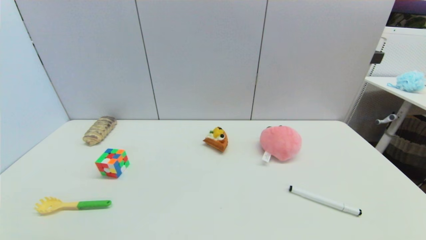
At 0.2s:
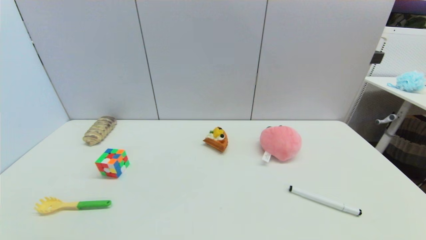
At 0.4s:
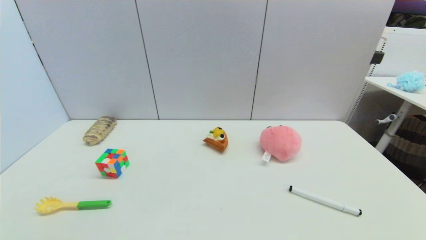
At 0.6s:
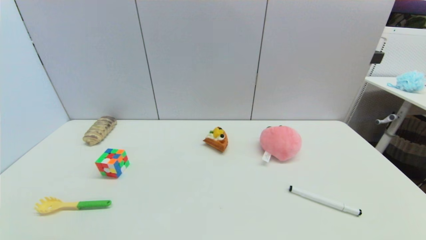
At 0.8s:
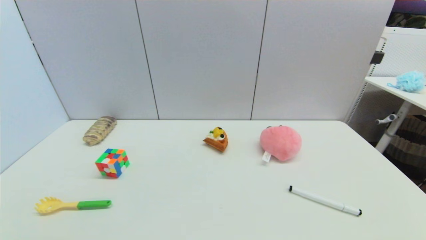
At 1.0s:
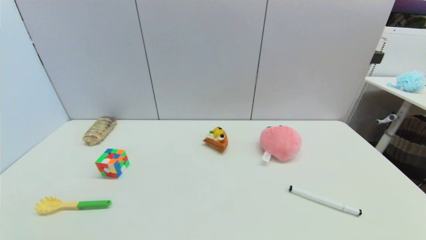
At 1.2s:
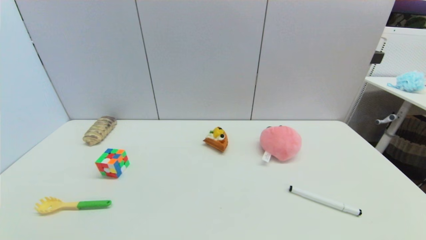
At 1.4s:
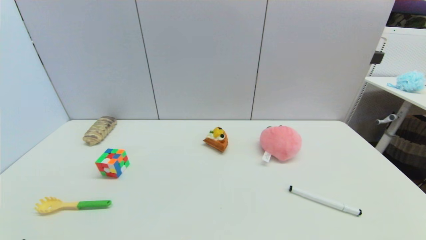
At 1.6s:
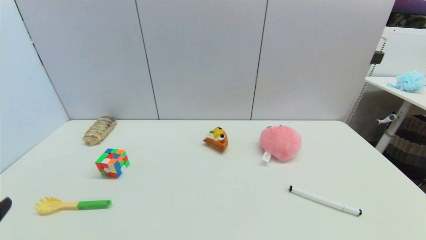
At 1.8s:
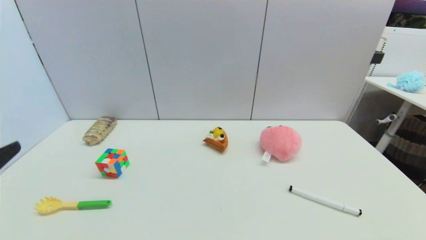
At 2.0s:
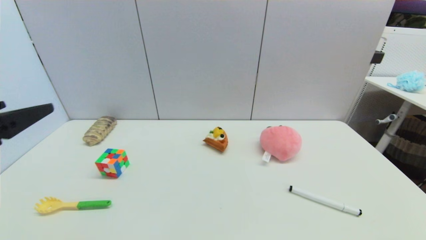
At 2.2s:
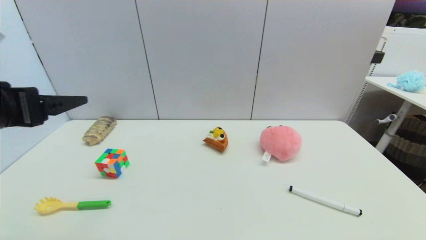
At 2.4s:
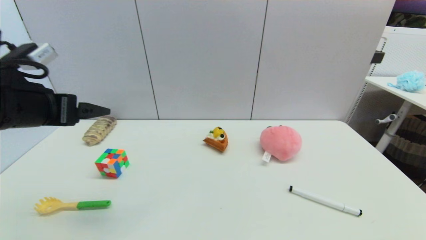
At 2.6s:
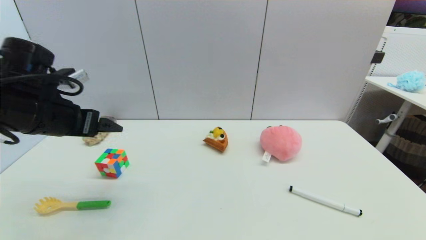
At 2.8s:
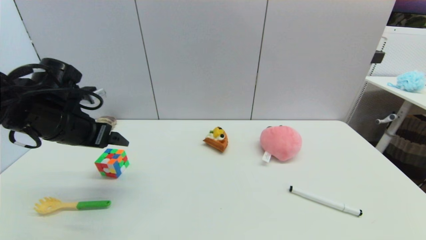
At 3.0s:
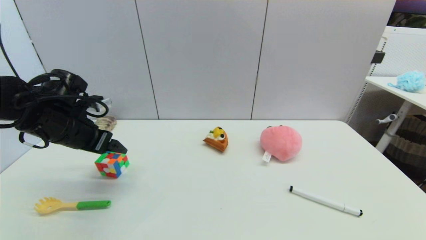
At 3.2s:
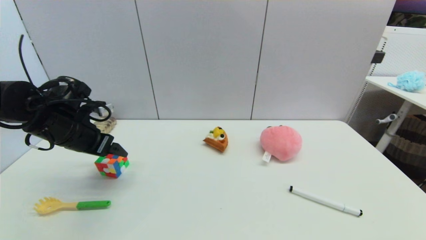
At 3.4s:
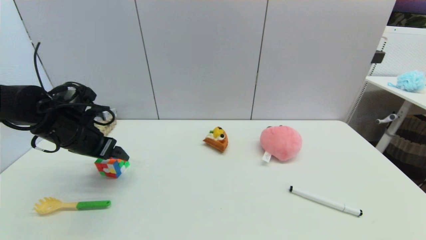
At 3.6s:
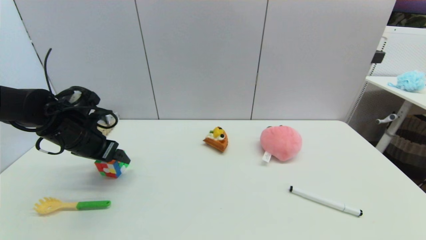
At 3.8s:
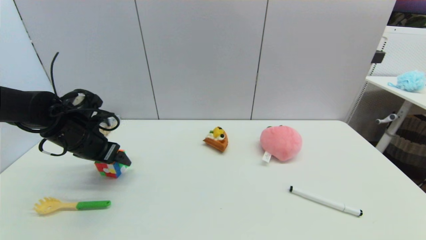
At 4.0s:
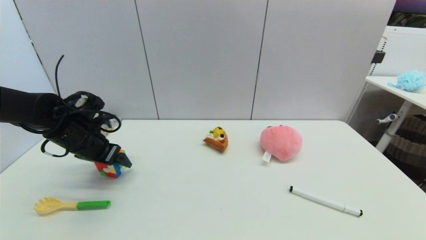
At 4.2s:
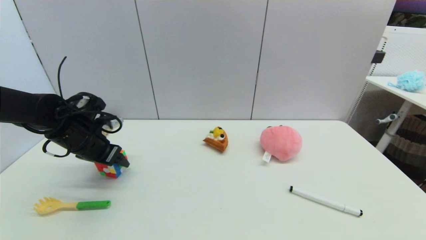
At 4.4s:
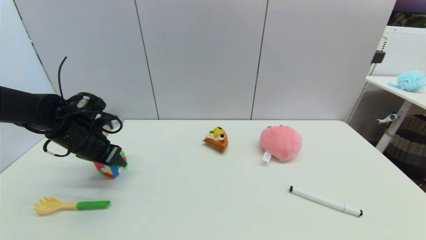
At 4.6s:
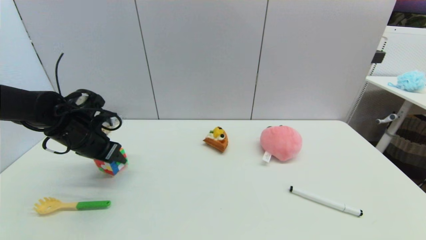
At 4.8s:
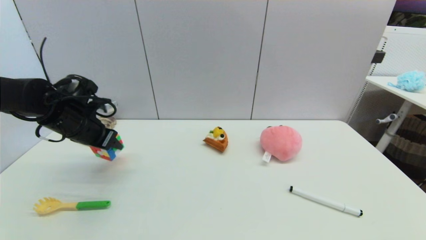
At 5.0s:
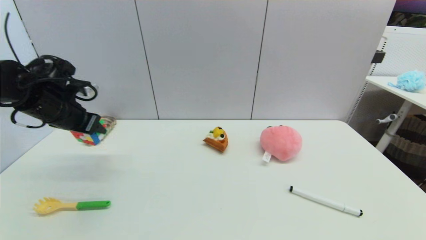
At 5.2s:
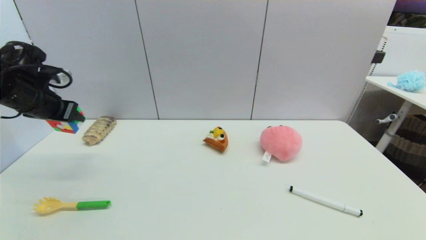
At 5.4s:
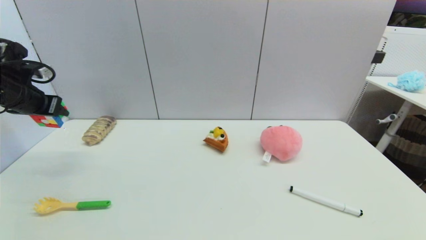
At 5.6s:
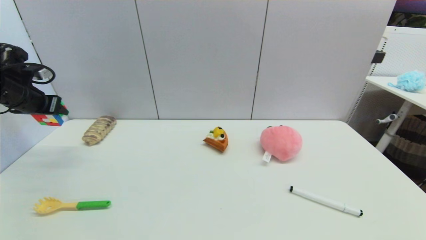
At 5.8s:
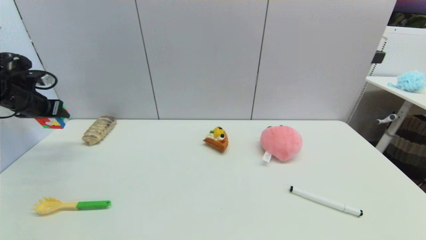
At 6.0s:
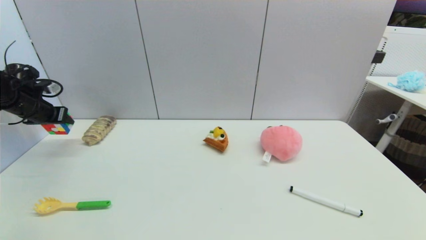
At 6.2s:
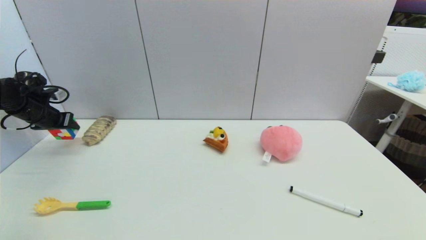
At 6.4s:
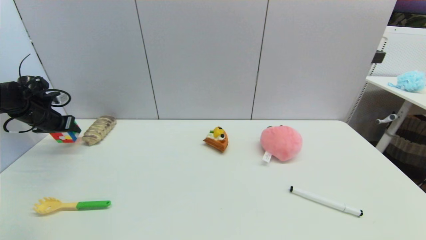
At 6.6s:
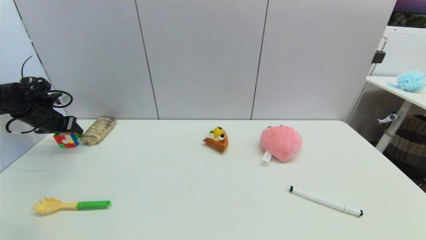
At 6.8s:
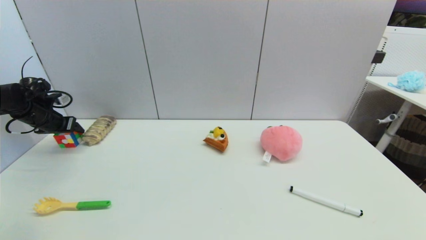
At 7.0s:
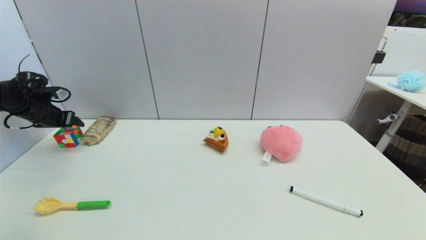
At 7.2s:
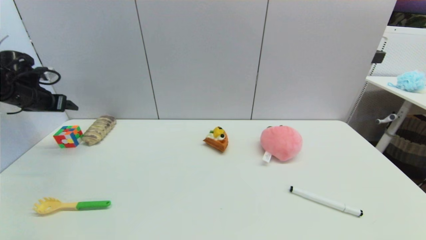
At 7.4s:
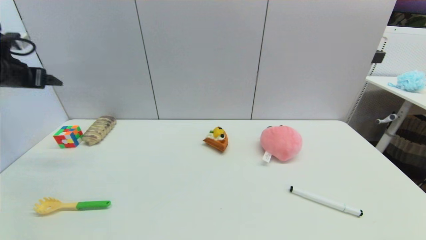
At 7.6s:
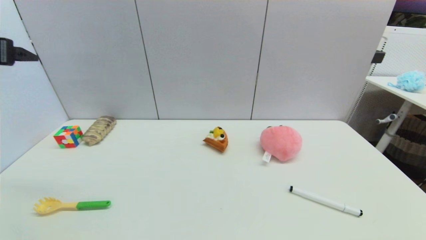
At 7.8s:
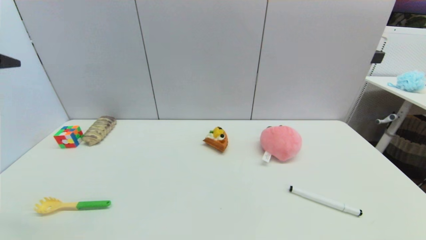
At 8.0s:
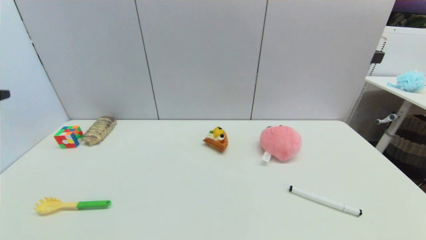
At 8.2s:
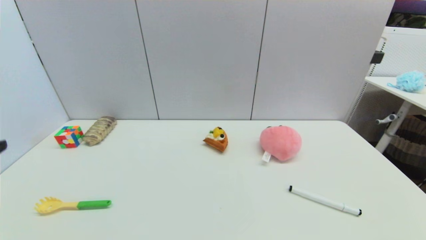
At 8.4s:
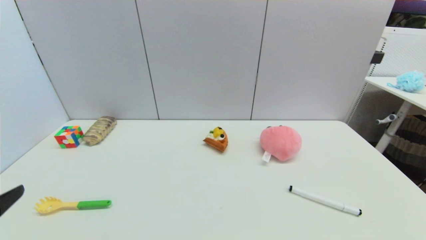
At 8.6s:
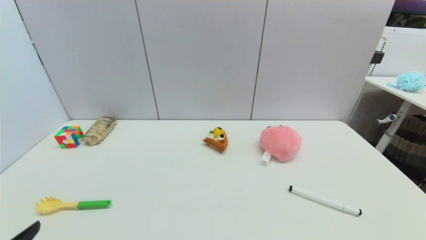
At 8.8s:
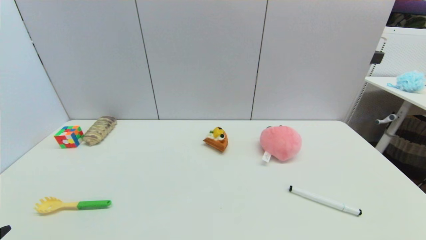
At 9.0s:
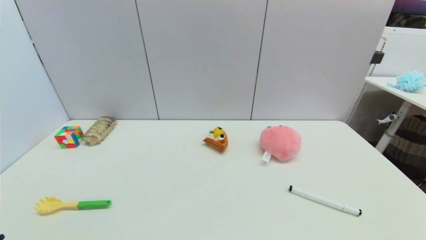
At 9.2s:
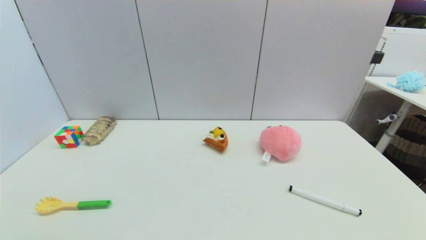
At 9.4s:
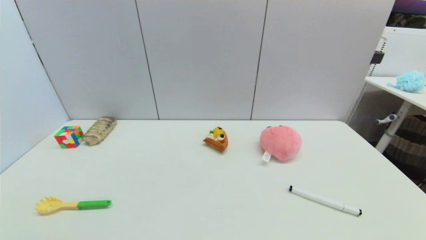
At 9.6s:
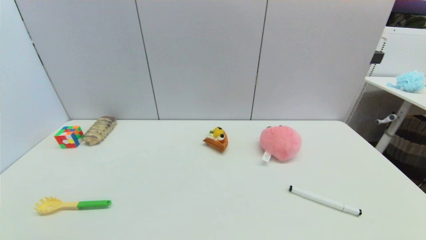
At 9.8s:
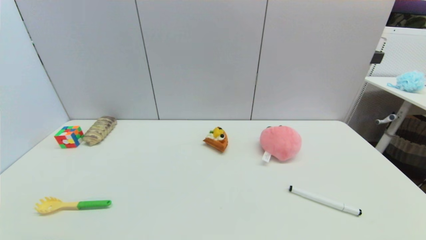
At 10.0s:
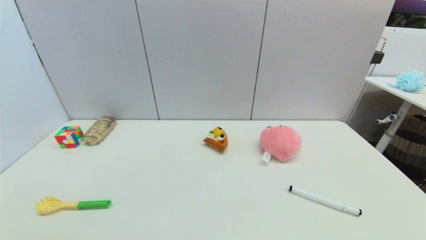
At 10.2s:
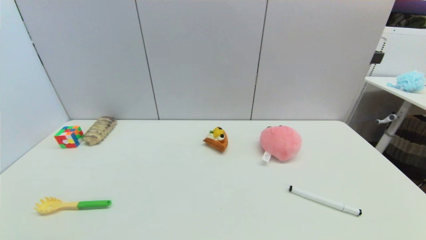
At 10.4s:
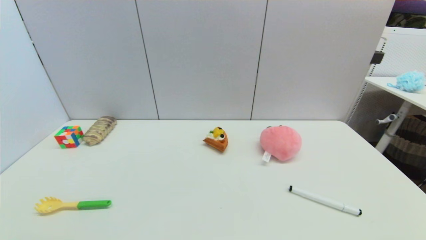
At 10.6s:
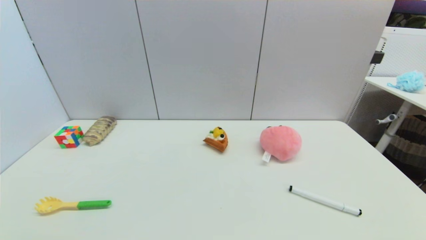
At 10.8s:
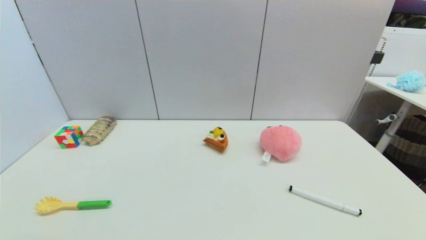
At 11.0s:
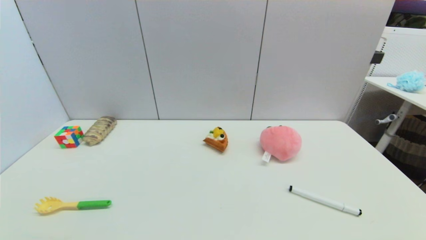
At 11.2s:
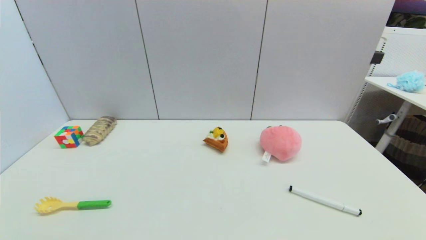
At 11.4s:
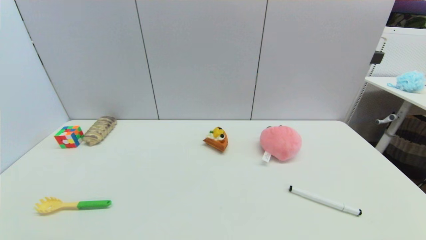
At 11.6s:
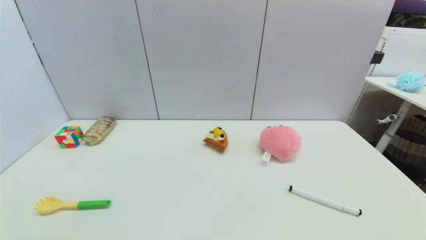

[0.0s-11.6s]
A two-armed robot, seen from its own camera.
Step, 1.4s to 4.4s: Grasp the magic cube with left gripper.
Step, 4.6s to 7.0s: Place the magic cube on the table with left gripper.
1.4s to 2.8s: The left gripper heads forward, covering about 30 cm.
2.8s to 4.4s: The left gripper goes about 10 cm downward and forward, and closes its fingers.
4.4s to 5.8s: The left gripper moves to the left and upward, roughly 20 cm.
5.8s to 7.2s: The left gripper moves approximately 5 cm downward and comes back, and opens its fingers.
7.2s to 8.8s: The left gripper heads backward, covering roughly 40 cm.
10.2s to 11.6s: Both grippers stay about where they are.

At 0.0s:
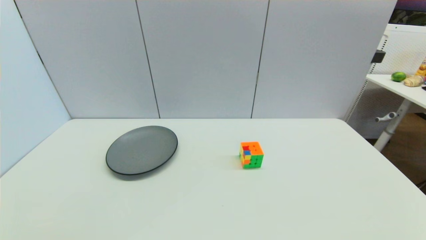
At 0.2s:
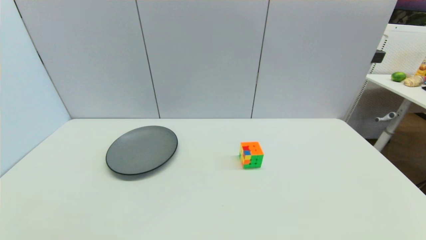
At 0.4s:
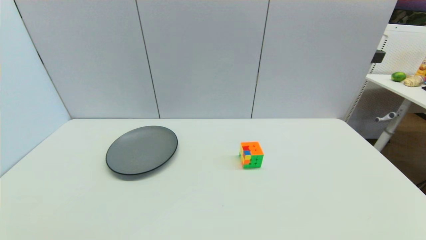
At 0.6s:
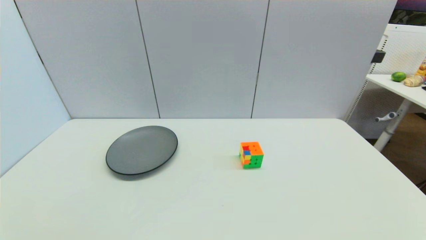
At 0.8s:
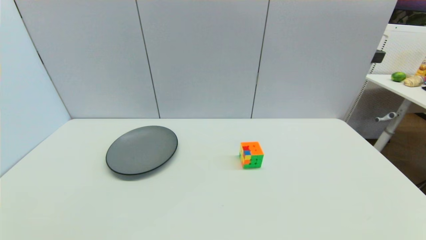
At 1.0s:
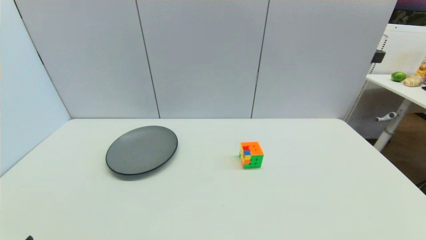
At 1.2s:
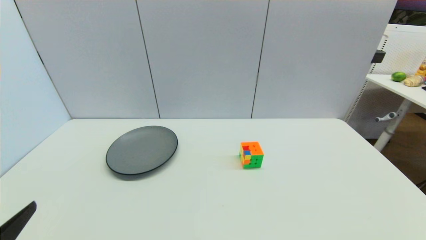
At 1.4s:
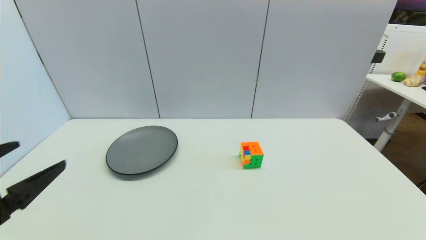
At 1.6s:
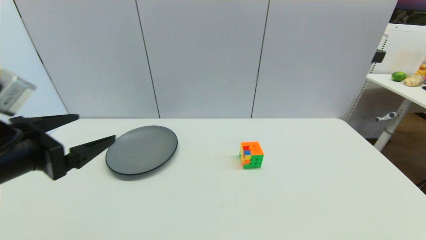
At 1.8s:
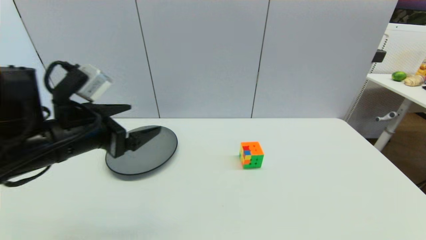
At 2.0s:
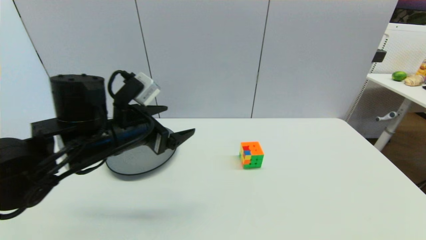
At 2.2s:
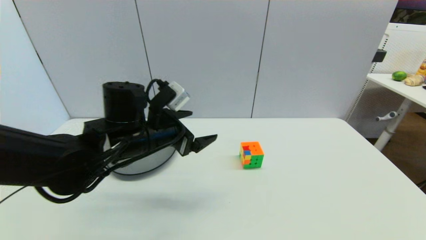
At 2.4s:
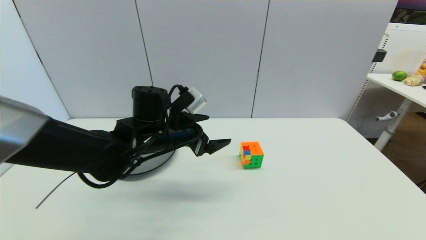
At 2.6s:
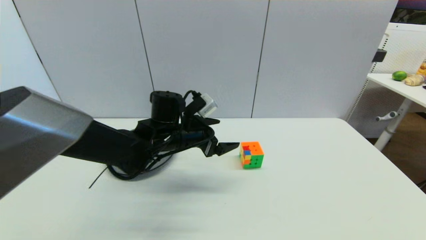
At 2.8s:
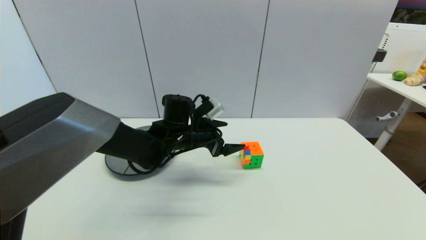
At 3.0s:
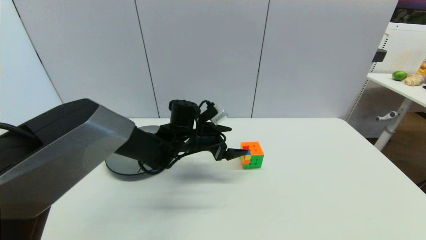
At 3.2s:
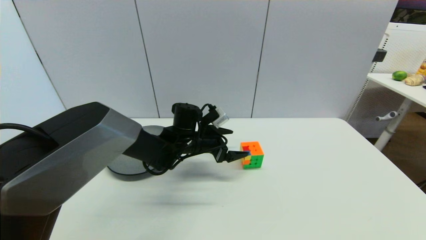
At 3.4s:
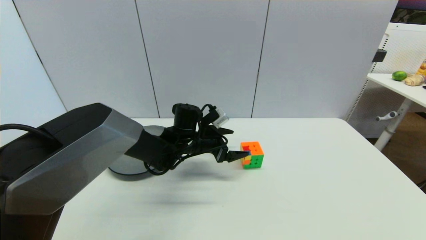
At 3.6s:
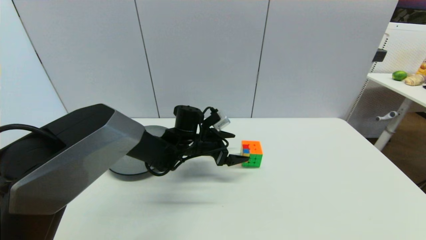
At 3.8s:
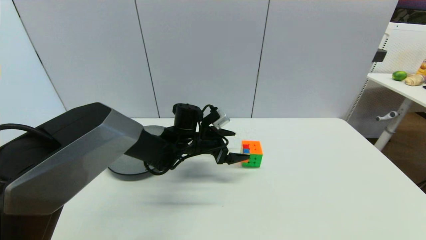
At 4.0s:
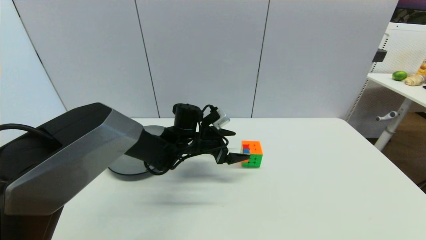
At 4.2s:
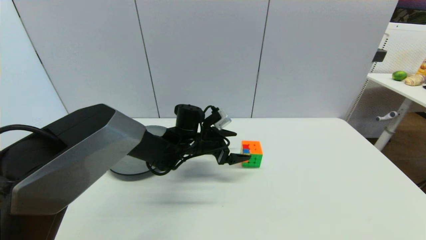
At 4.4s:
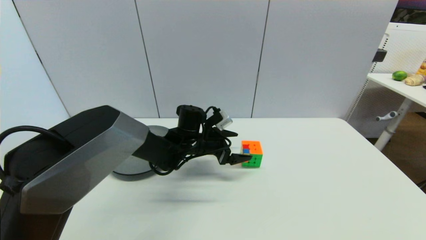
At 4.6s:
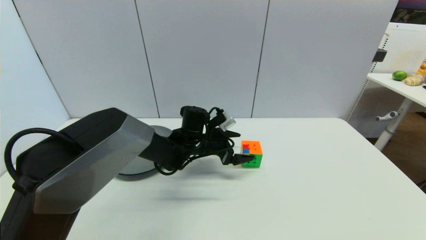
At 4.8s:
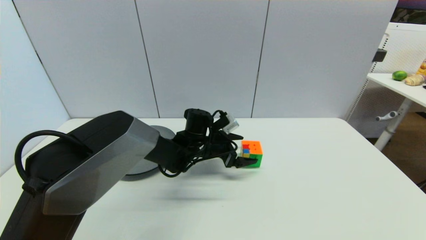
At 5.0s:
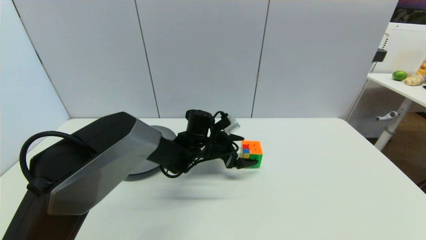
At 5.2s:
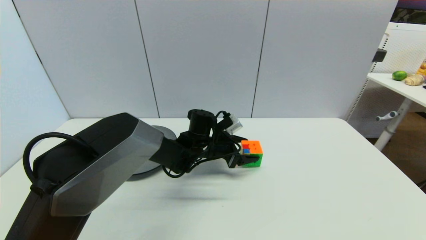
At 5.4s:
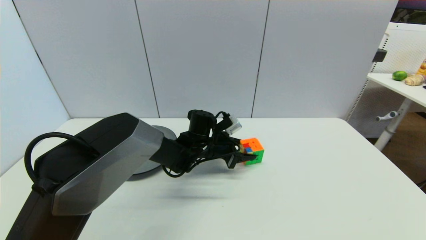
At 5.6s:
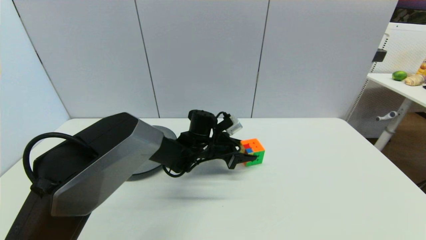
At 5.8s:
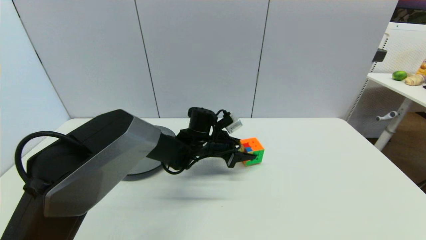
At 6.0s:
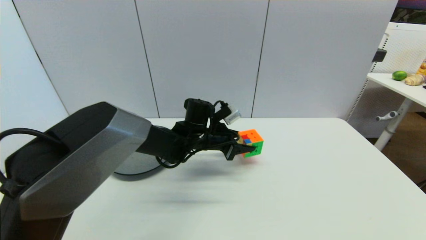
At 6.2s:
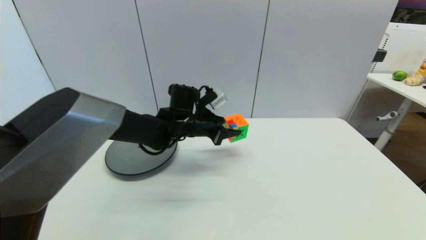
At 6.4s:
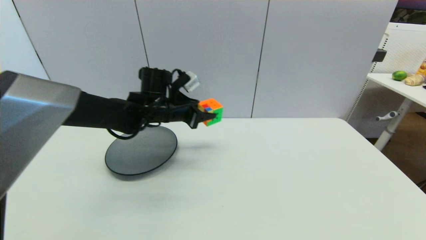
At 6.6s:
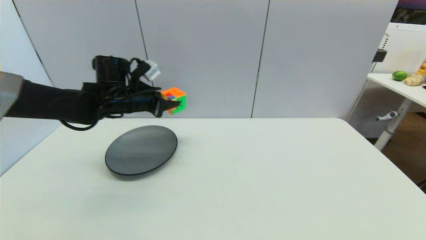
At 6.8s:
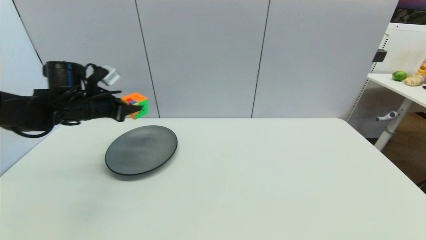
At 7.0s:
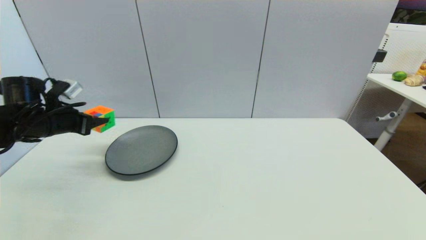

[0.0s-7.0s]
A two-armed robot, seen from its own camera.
Step, 1.0s to 5.6s: Grasp the magic cube with left gripper.
0.0s to 1.4s: The left gripper shifts some 20 cm upward and forward.
1.4s to 2.8s: The left gripper moves forward and to the right, approximately 35 cm.
2.8s to 4.2s: The grippers move only a little.
4.2s to 5.6s: The left gripper closes.
5.6s to 7.0s: The left gripper moves to the left, approximately 35 cm.
